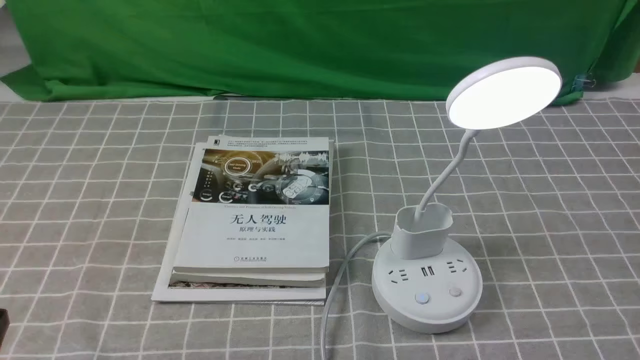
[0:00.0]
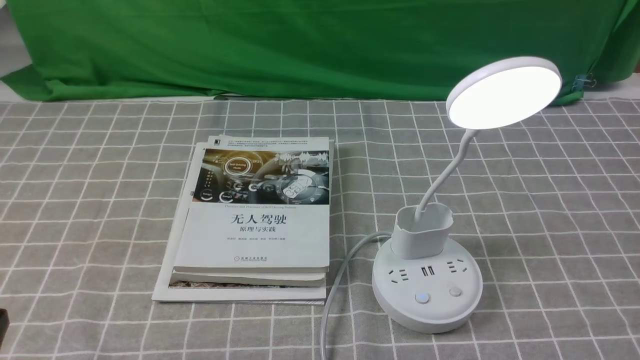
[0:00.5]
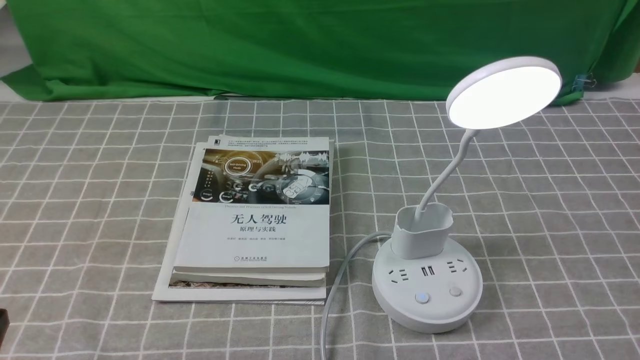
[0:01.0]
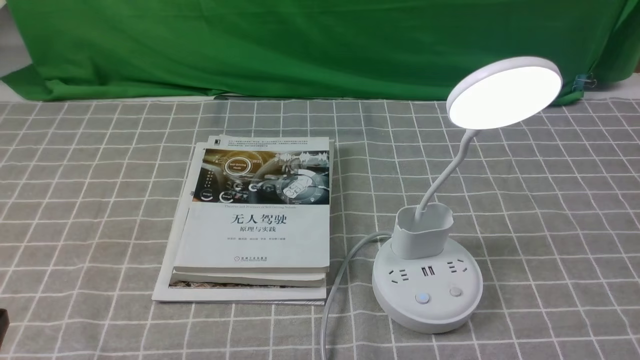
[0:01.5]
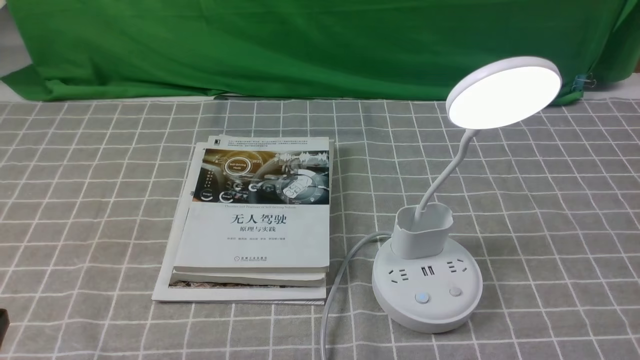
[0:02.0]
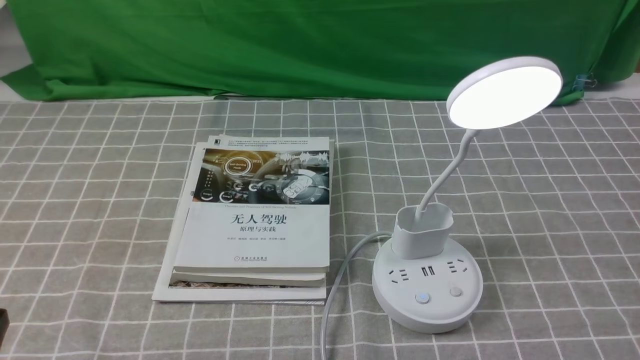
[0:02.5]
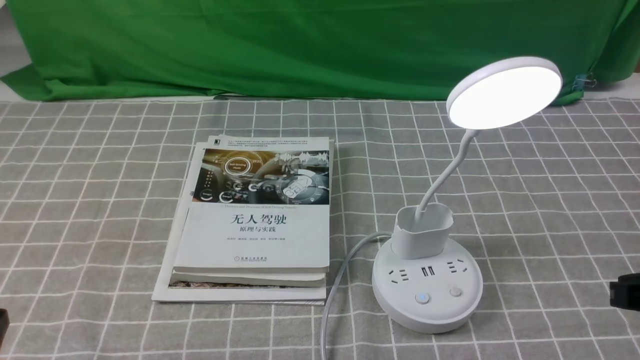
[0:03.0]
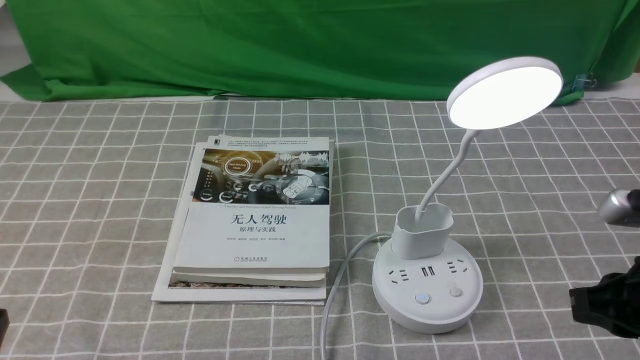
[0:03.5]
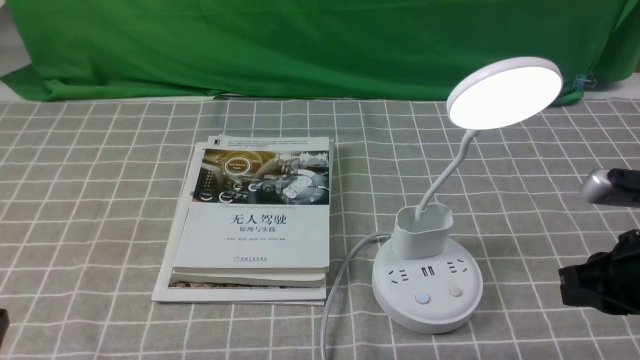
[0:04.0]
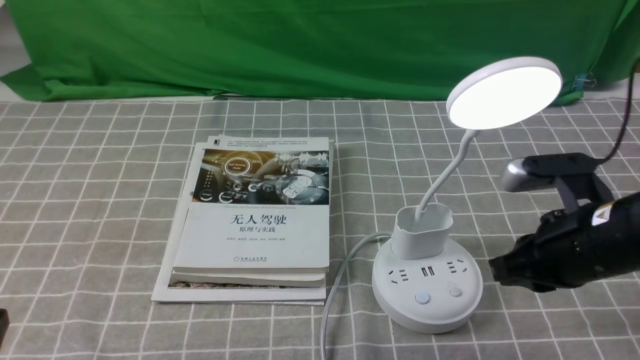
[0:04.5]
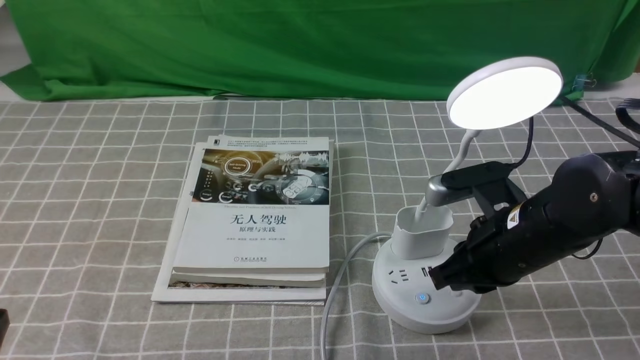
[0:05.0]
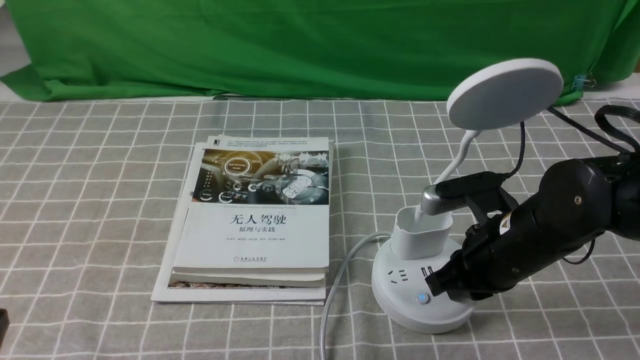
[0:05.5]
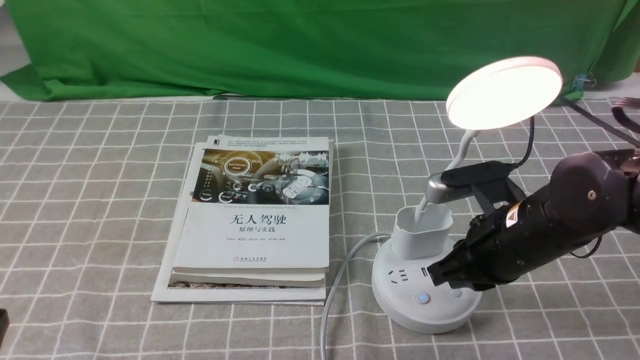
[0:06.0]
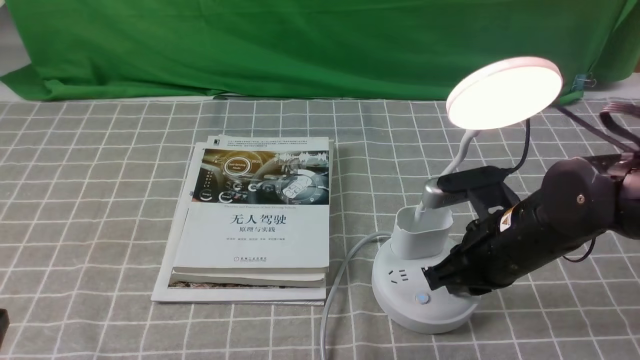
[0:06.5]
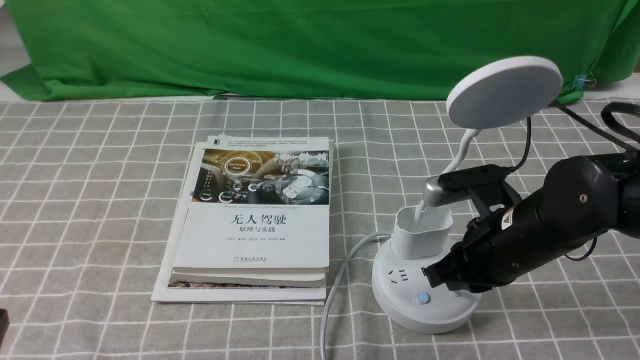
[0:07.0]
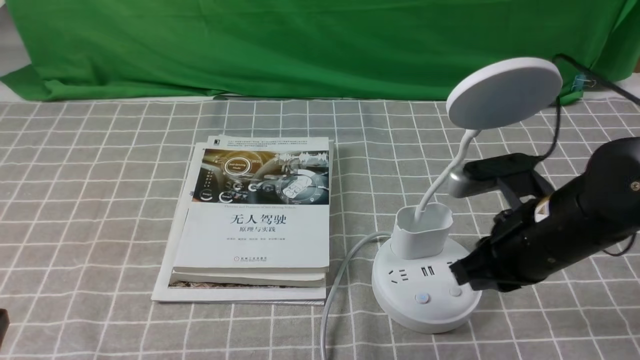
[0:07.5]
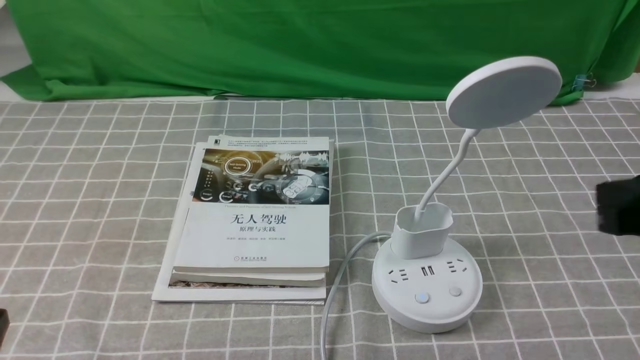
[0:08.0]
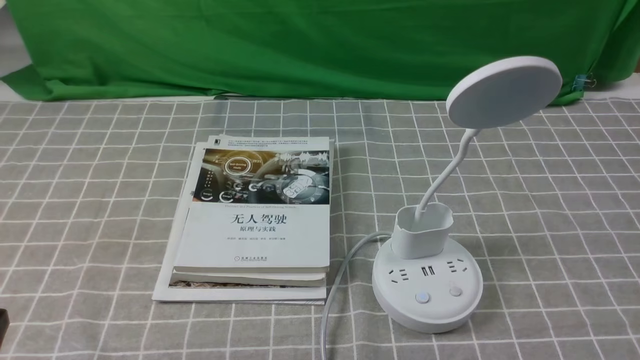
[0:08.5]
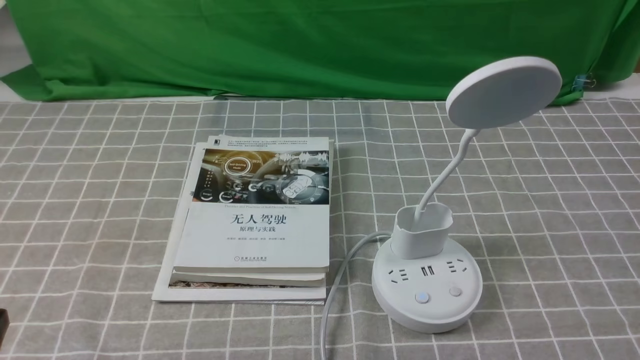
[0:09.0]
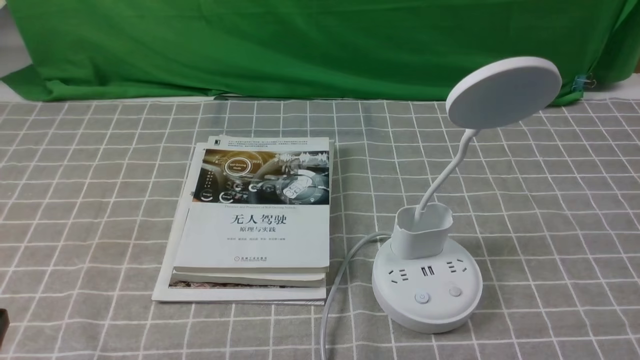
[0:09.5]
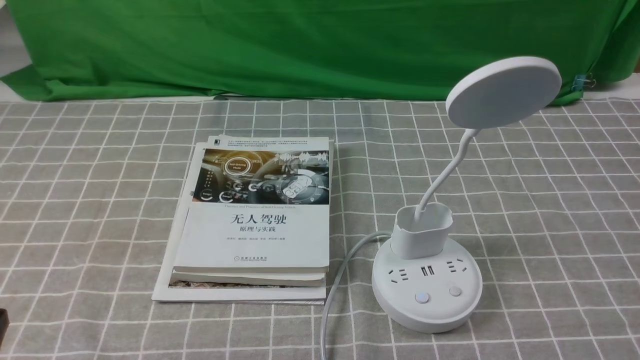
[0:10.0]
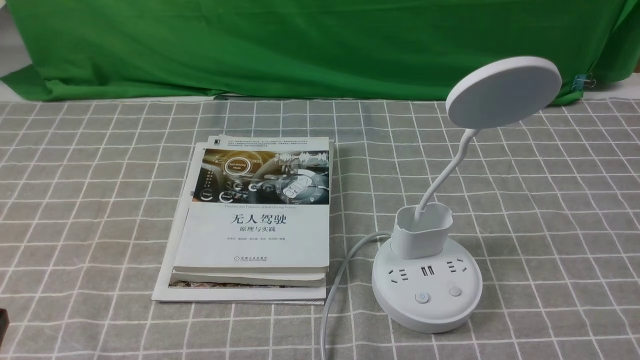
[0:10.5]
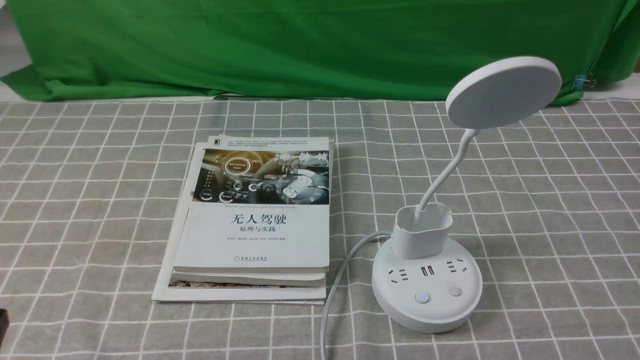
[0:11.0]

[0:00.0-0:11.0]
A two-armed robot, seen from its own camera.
Task of the whole recording: turn off the desk lamp on the grey coffee tablecloth by hand.
Step, 0:00.0 to 0:07.0: use the right arm to press the button switch on the lamp holder.
0:02.0 to 0:03.5: The right gripper heads forward and downward, covering some 15 cm, and closes its fingers.
0:03.5 to 0:05.5: The right gripper moves to the left and forward, roughly 15 cm, and opens.
0:05.5 to 0:07.5: The right gripper ends up about 5 cm from where it was, and closes up.
0:07.5 to 0:09.0: The right gripper goes some 20 cm backward, to the right and upward.
